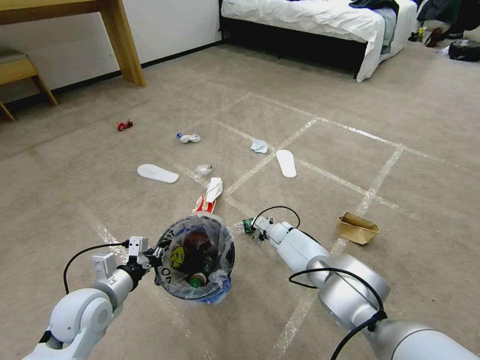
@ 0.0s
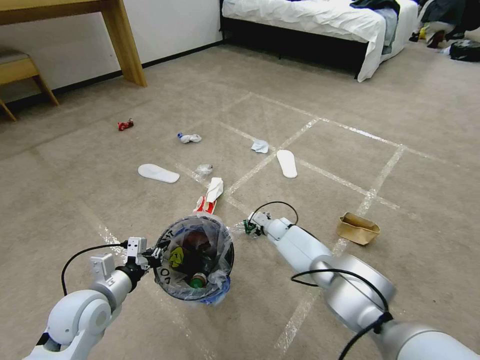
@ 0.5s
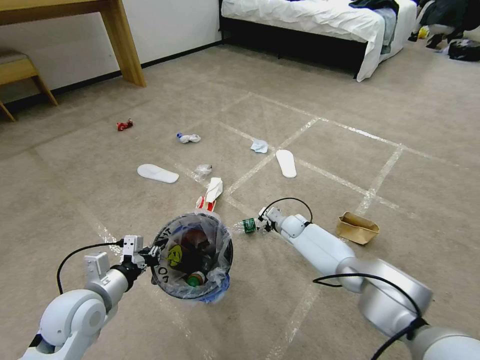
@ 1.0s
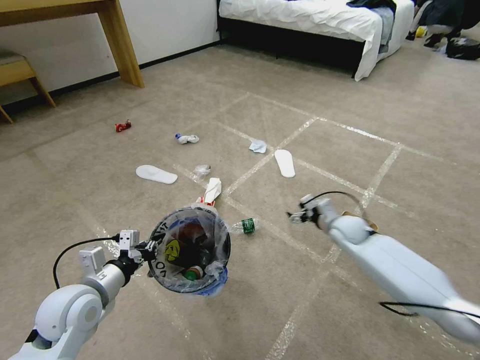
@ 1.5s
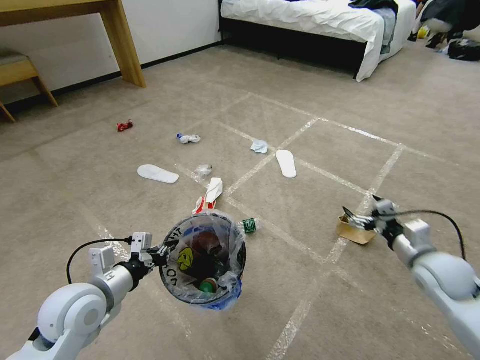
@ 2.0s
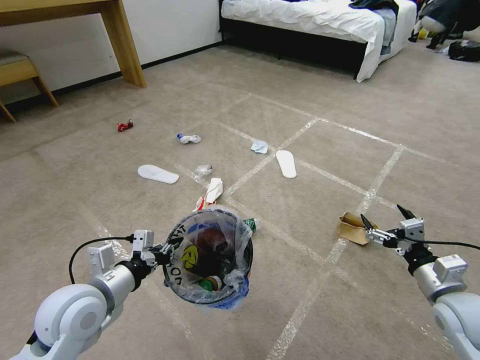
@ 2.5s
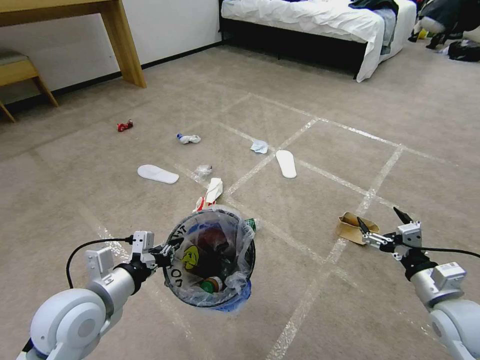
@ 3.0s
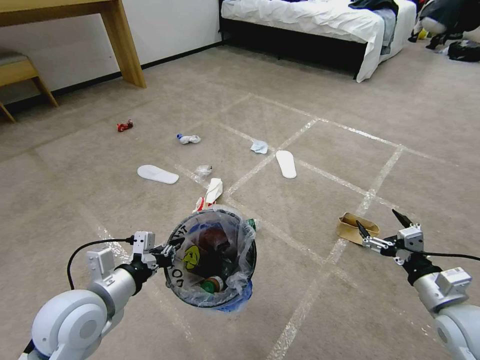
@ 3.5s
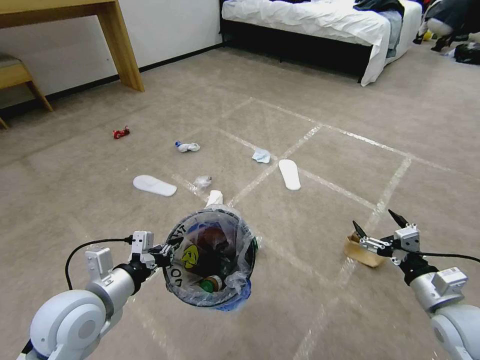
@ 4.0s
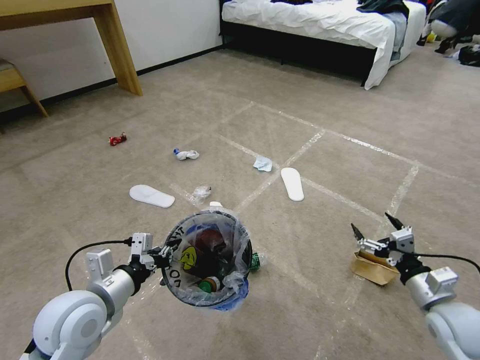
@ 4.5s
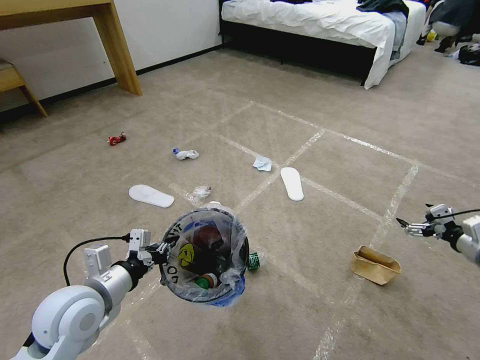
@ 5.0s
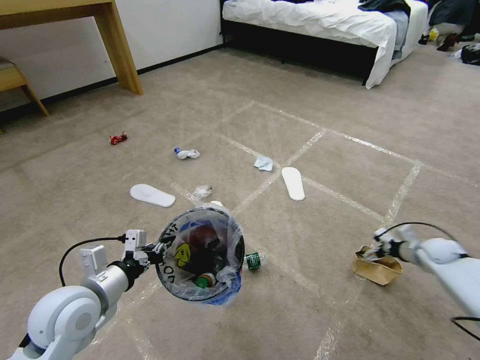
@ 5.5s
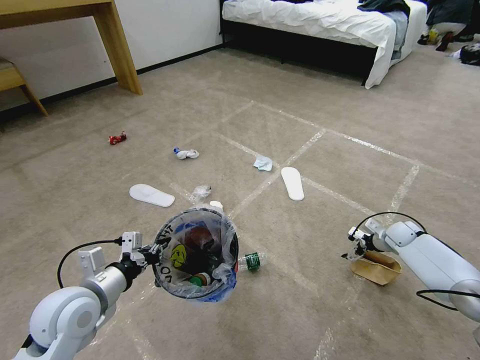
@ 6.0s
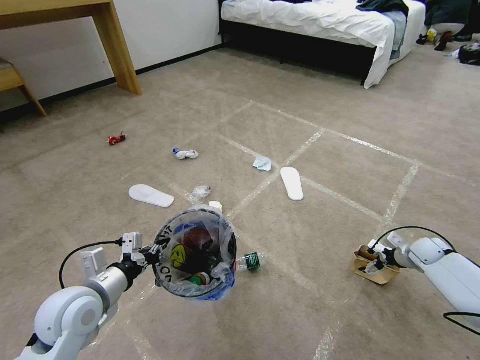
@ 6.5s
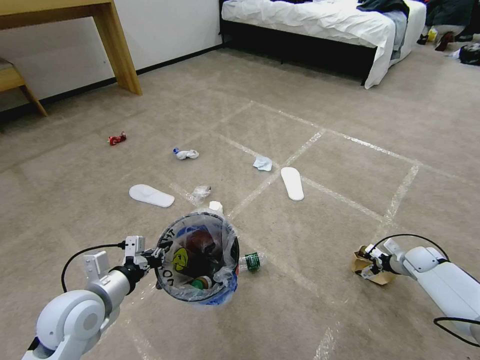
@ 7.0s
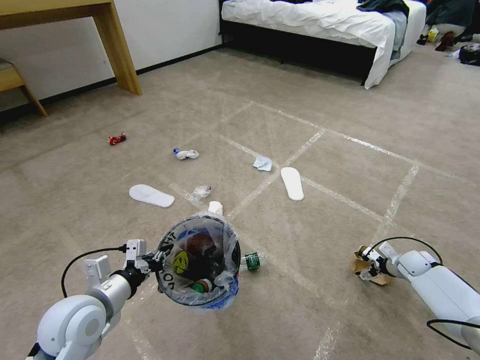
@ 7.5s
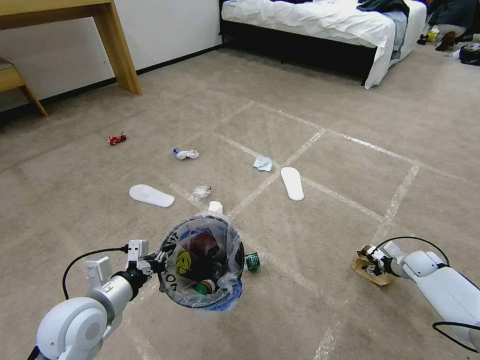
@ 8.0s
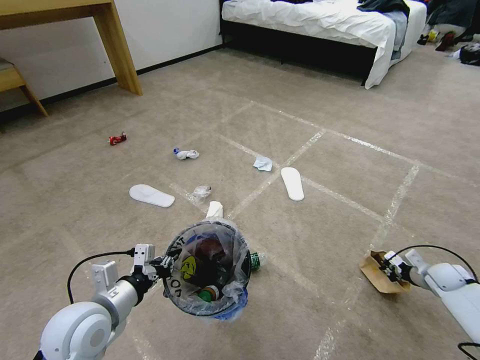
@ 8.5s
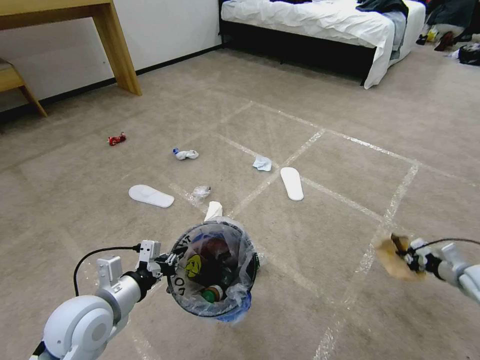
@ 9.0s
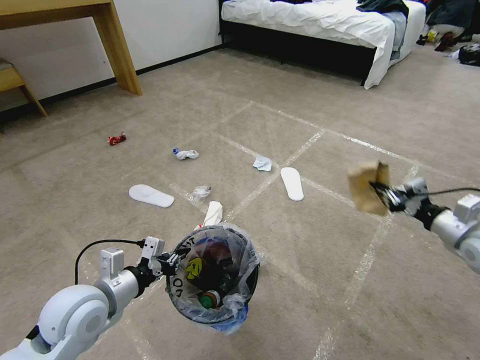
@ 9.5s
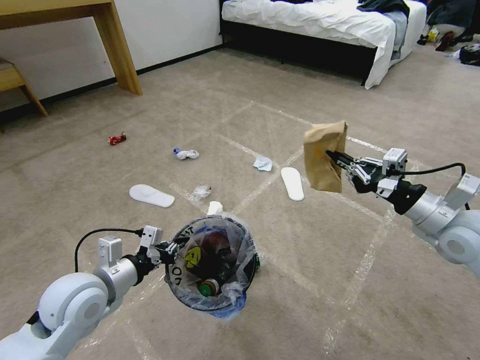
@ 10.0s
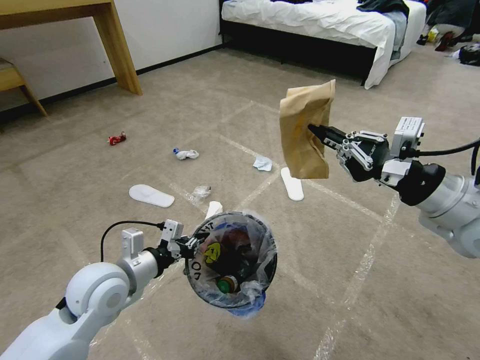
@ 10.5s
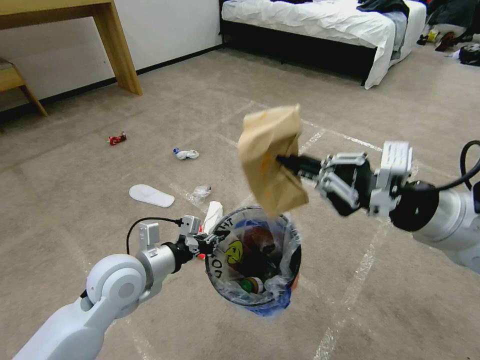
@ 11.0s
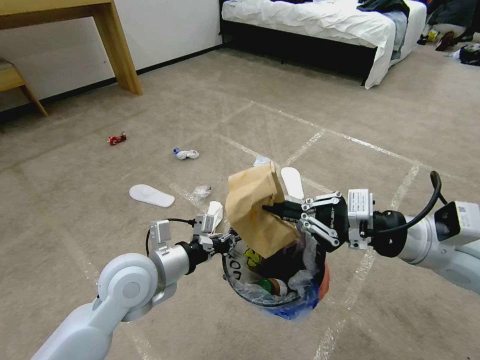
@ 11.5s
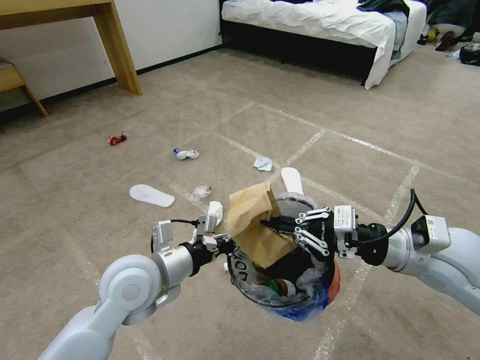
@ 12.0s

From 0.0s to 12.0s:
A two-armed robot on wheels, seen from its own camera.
Task of the whole recording: Pick up the trash bin and place the garbage on the floor into it.
From 0.0s to 2.0s: The right gripper shifts some 40 cm to the right, backward and upward, while the left gripper travels upward by about 5 cm.
From 2.0s to 4.0s: The right gripper is displaced backward by about 10 cm.
From 4.0s to 6.0s: The right gripper moves forward, roughly 30 cm.
From 6.0s to 8.0s: The right gripper shifts roughly 10 cm backward, and closes up.
From 8.0s to 10.0s: The right gripper heads upward and to the left, covering some 35 cm, and closes its fingers.
From 10.0s to 12.0s: The left gripper moves to the right, roughly 10 cm; the right gripper shifts roughly 10 cm to the left, and travels upward and back again, roughly 10 cm each way.

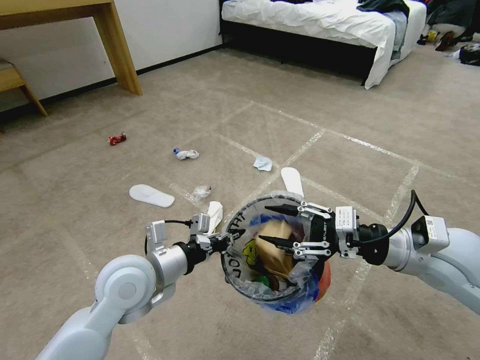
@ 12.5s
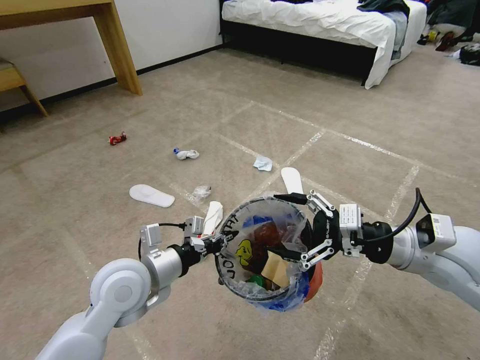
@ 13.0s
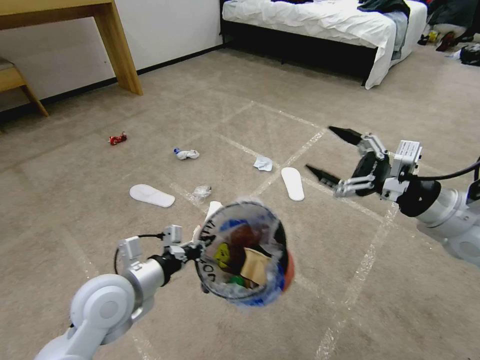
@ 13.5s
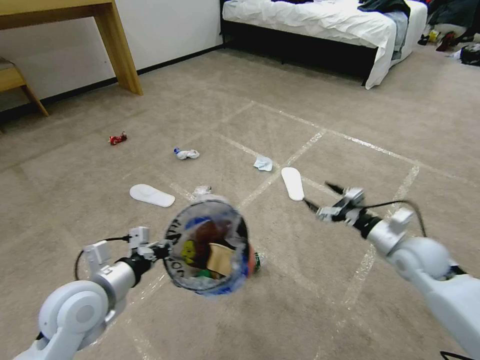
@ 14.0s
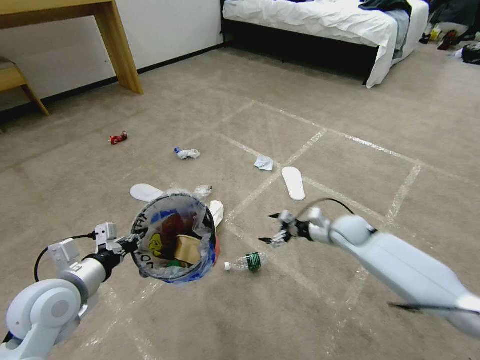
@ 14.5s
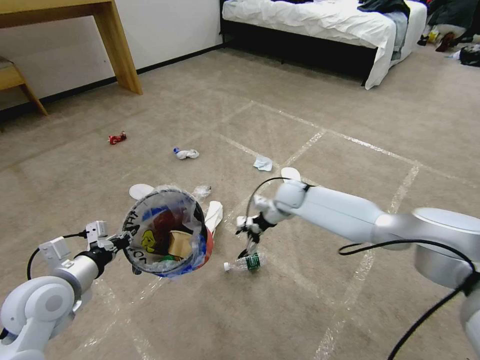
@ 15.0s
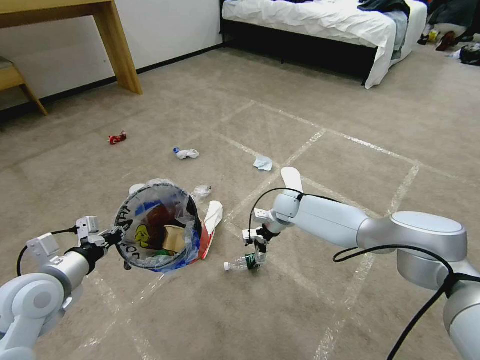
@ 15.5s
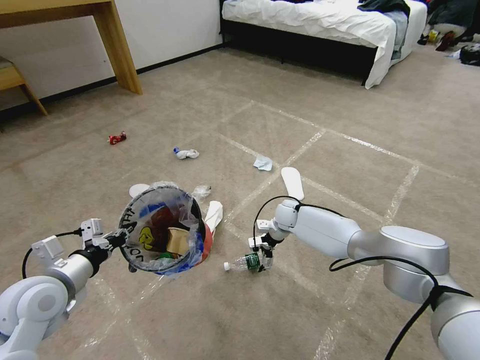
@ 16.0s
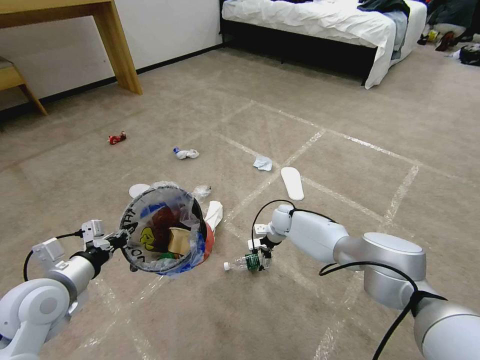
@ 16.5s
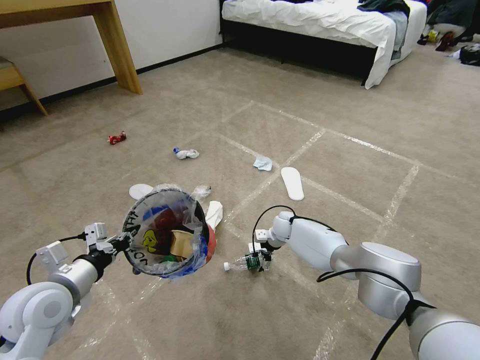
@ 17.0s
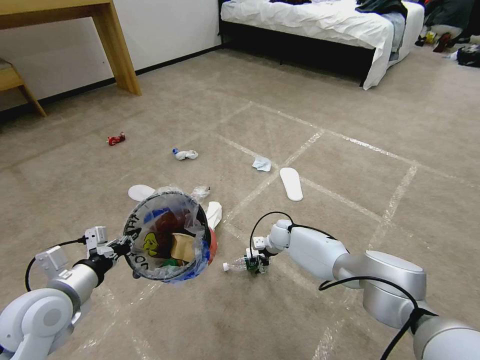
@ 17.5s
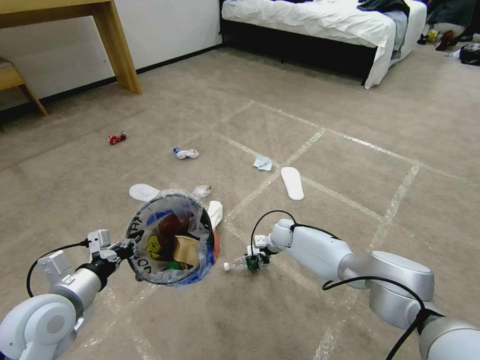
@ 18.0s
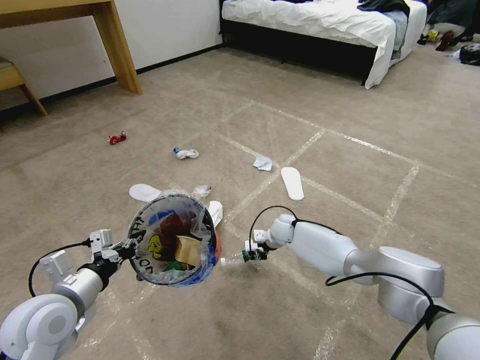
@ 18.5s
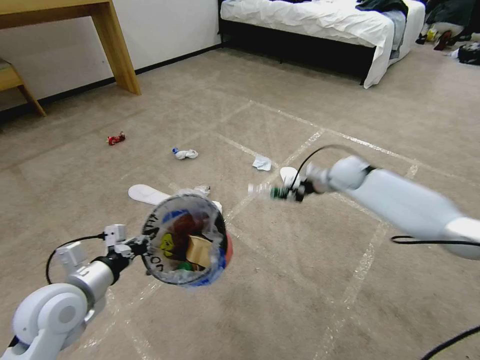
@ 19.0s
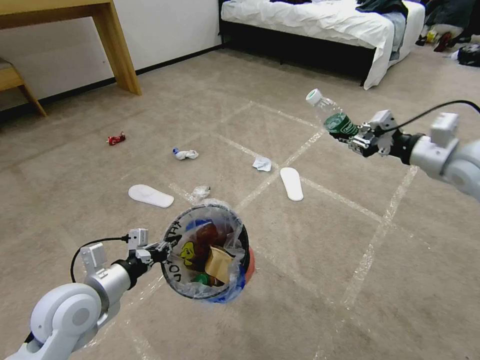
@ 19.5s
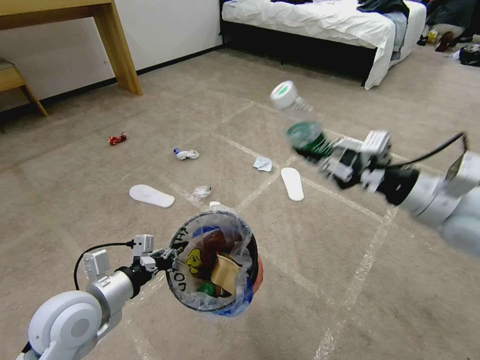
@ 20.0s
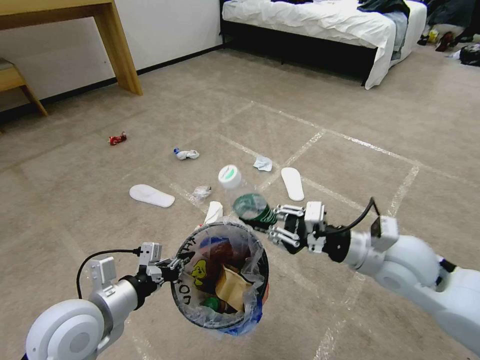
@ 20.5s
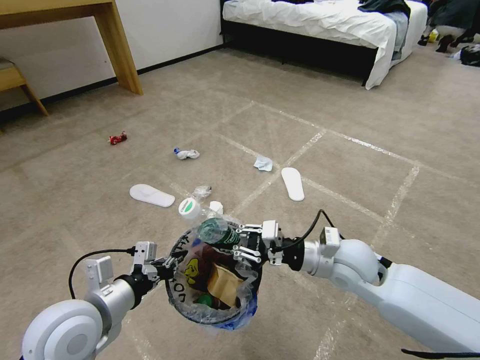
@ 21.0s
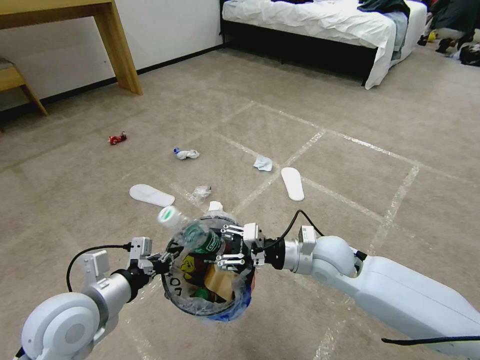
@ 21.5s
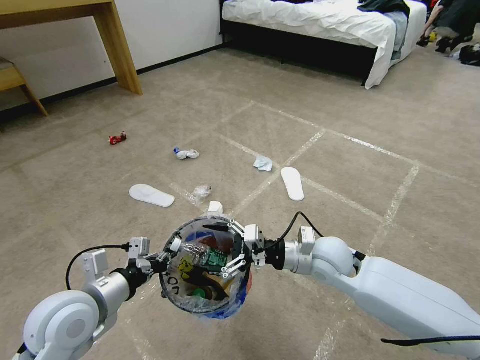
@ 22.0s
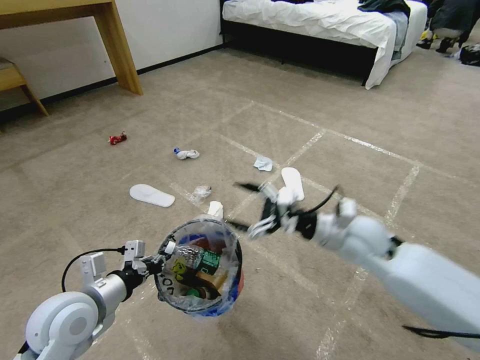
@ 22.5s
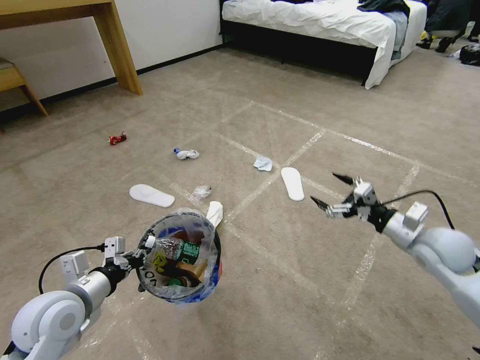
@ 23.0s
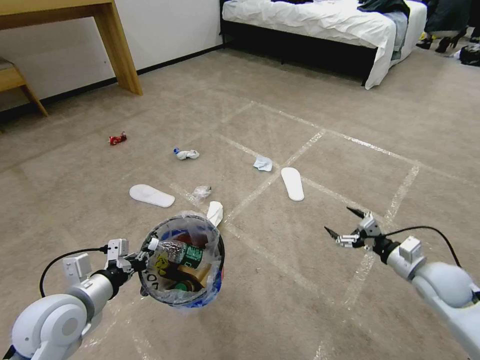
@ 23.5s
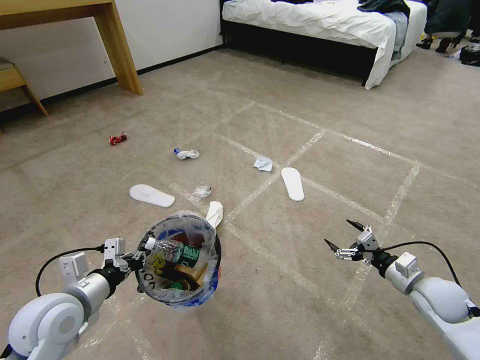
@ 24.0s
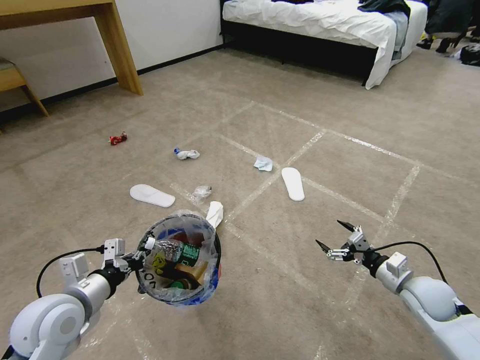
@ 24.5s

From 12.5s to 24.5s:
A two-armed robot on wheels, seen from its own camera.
Task of the whole recording: Pick up the trash bin and place the garbage on the floor into it.
From 12.5s to 14.5s: The left gripper goes about 15 cm to the left. Meanwhile the right gripper travels forward and downward by approximately 25 cm, and opens.
From 14.5s to 16.5s: The right gripper goes about 20 cm to the left, forward and downward.
From 16.5s to 18.5s: The right gripper closes its fingers.
From 18.5s to 20.5s: The left gripper heads to the right, covering approximately 5 cm; the right gripper goes approximately 35 cm backward, upward and to the right.
From 20.5s to 22.5s: The right gripper travels forward by roughly 5 cm, goes to the left and returns, some 10 cm each way, and opens.
From 22.5s to 24.5s: The right gripper is displaced to the right and downward by roughly 25 cm.

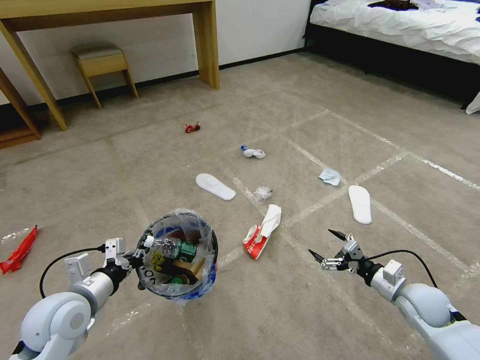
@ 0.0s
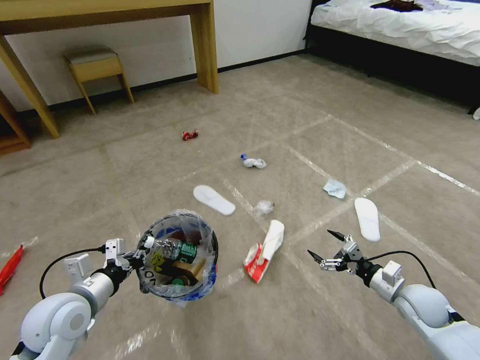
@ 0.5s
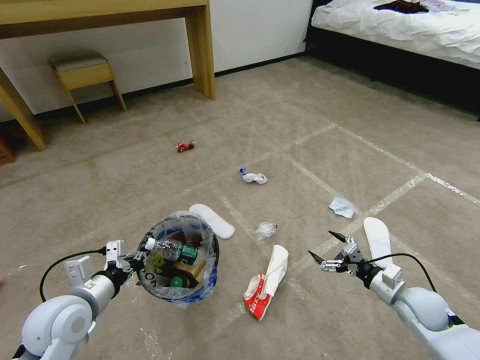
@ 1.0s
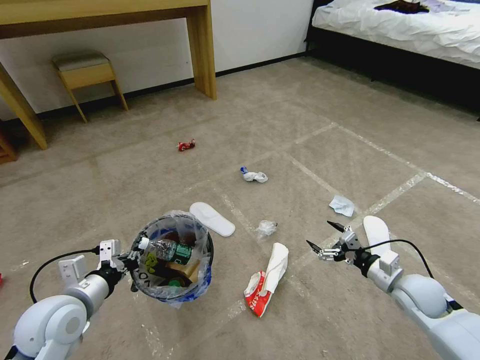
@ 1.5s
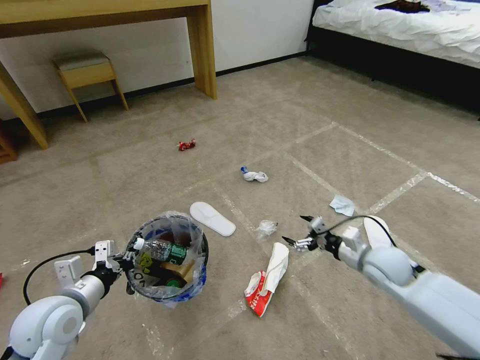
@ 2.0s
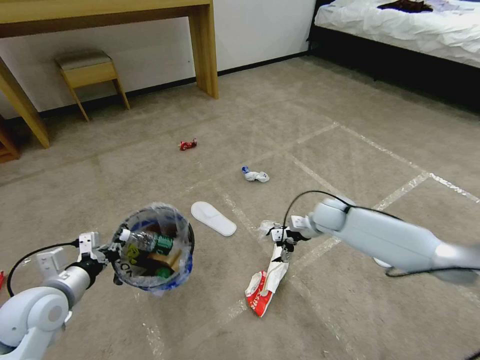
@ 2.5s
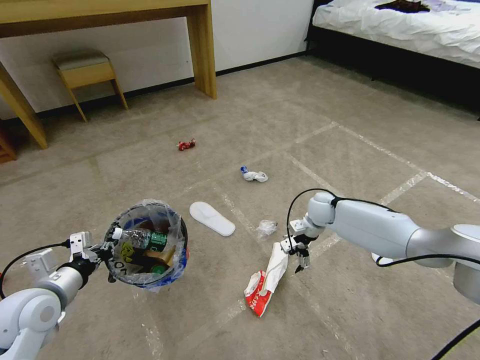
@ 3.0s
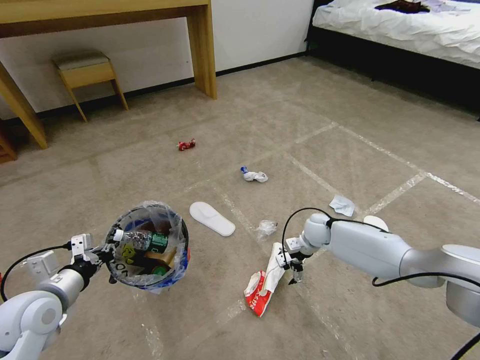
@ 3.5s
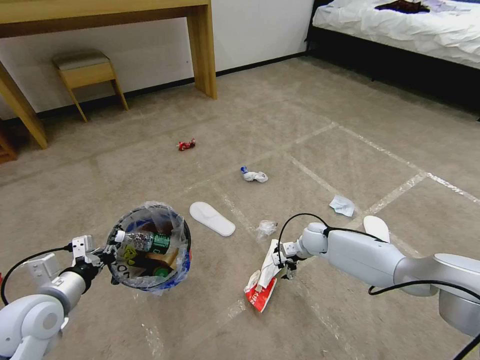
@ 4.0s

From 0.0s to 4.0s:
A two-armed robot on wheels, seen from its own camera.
Task of the whole recording: Pick up the trash bin and place the garbage on the floor into it.
From 0.0s to 2.0s: The right gripper moves to the left, upward and forward, about 10 cm.
From 2.0s to 4.0s: The right gripper shifts some 20 cm forward, to the left and downward.
